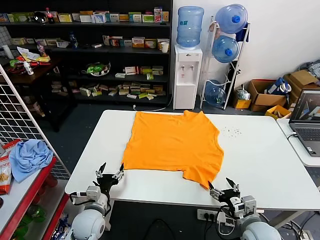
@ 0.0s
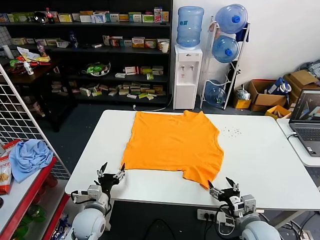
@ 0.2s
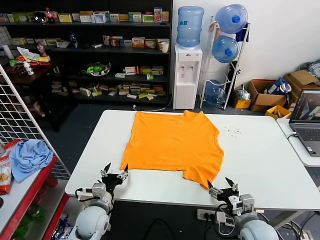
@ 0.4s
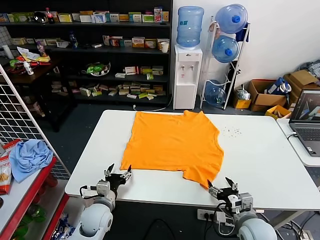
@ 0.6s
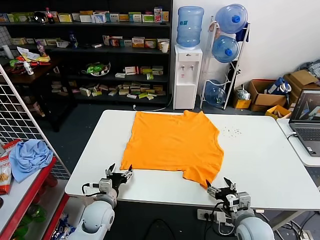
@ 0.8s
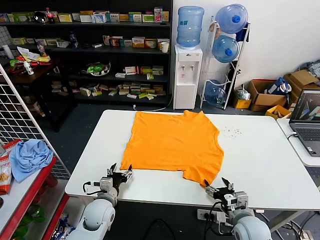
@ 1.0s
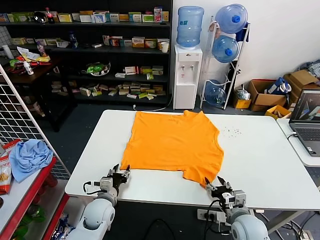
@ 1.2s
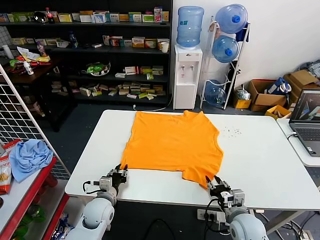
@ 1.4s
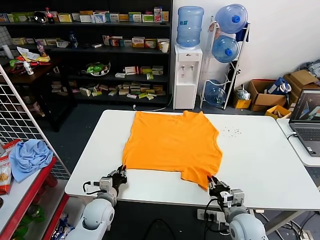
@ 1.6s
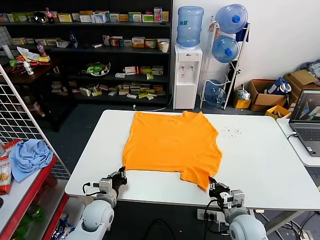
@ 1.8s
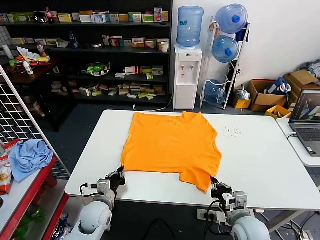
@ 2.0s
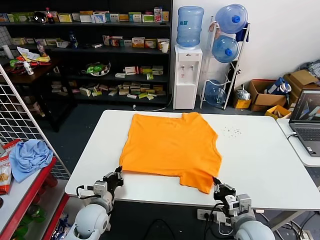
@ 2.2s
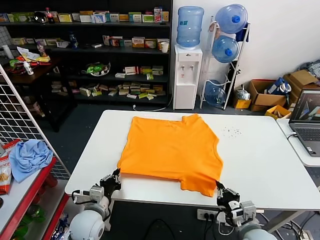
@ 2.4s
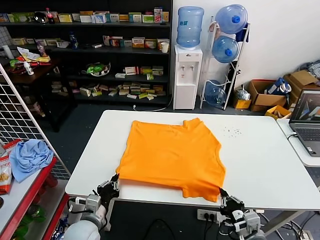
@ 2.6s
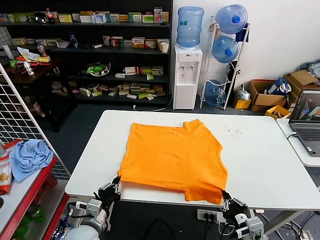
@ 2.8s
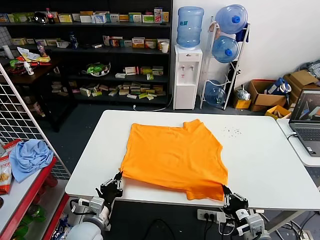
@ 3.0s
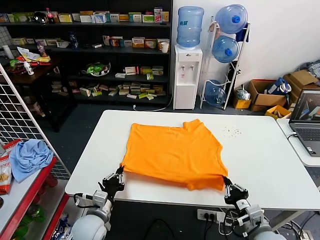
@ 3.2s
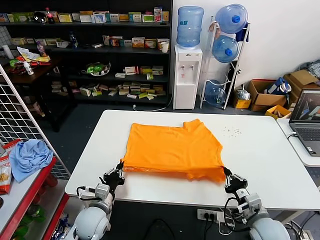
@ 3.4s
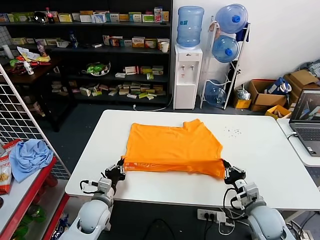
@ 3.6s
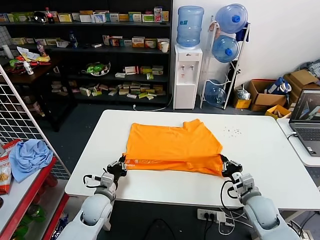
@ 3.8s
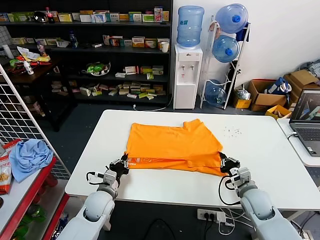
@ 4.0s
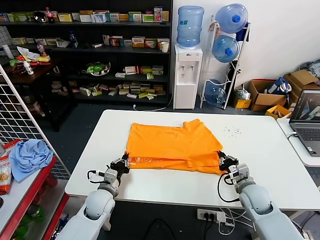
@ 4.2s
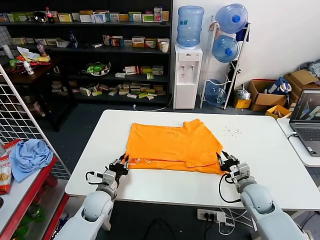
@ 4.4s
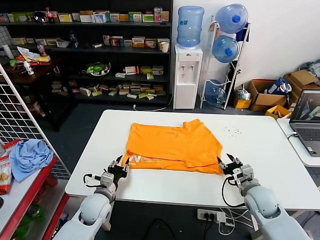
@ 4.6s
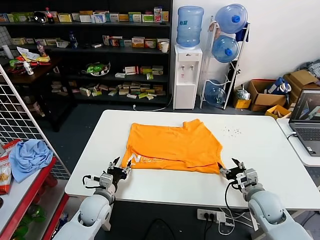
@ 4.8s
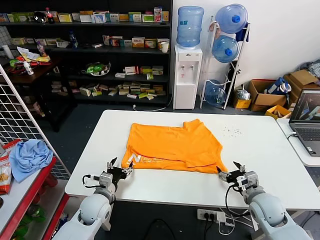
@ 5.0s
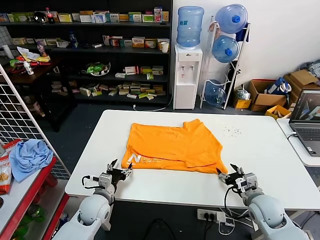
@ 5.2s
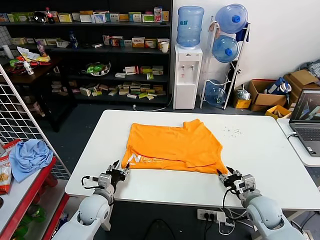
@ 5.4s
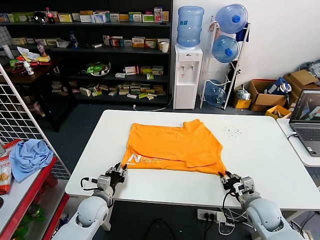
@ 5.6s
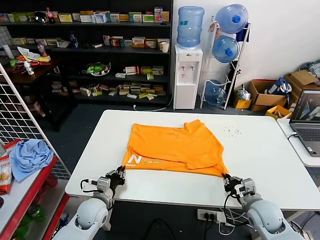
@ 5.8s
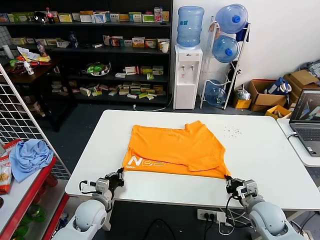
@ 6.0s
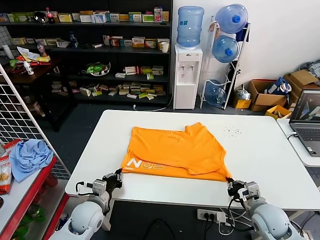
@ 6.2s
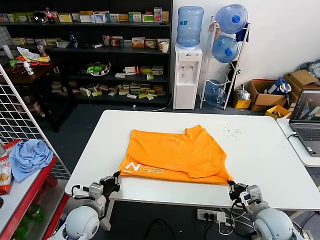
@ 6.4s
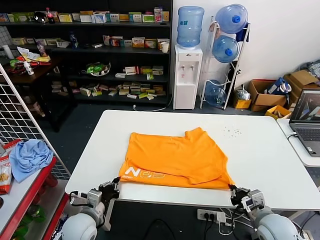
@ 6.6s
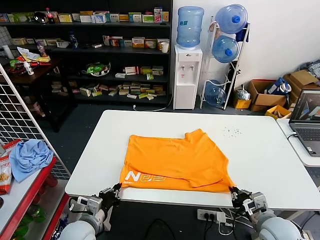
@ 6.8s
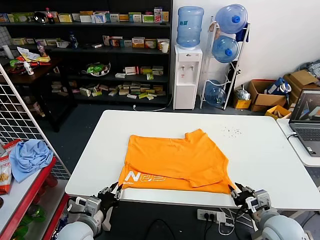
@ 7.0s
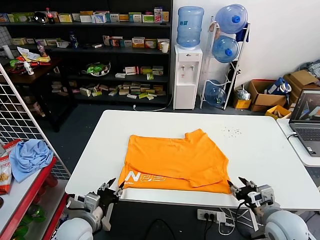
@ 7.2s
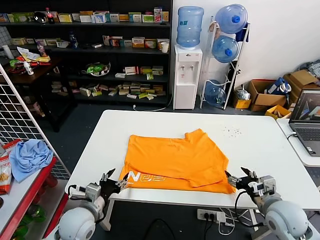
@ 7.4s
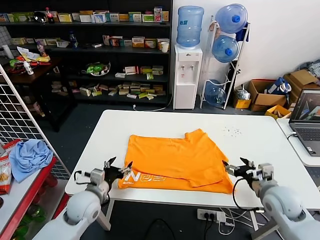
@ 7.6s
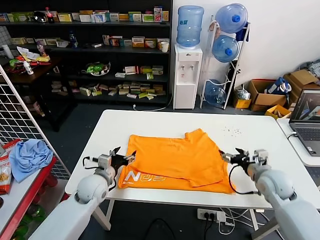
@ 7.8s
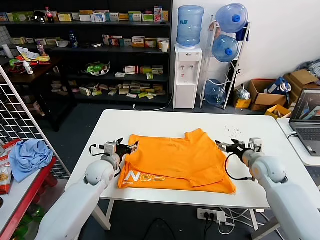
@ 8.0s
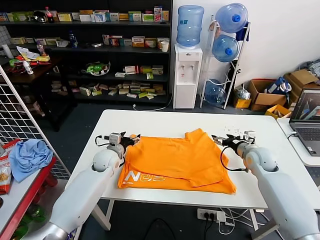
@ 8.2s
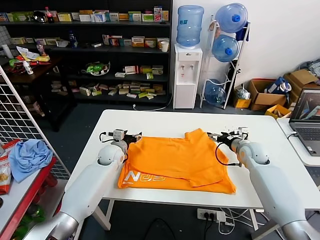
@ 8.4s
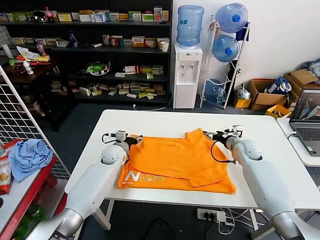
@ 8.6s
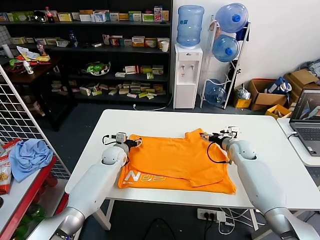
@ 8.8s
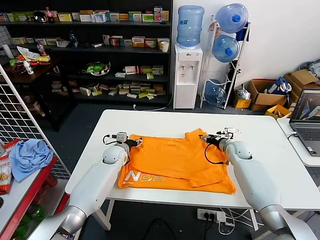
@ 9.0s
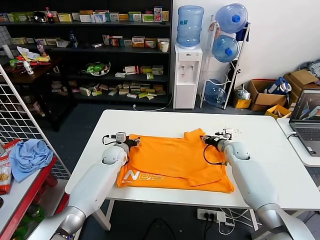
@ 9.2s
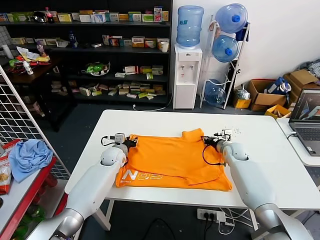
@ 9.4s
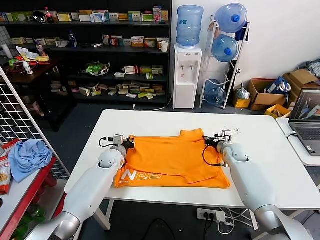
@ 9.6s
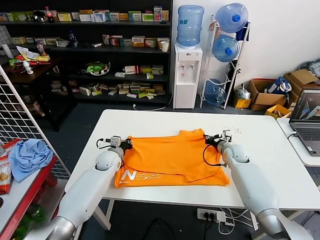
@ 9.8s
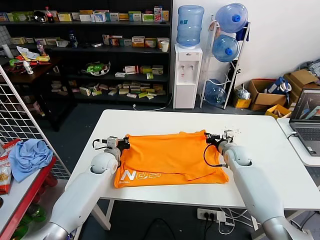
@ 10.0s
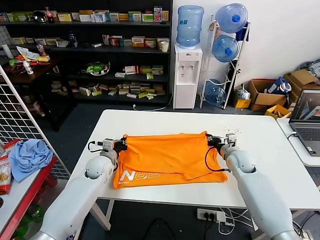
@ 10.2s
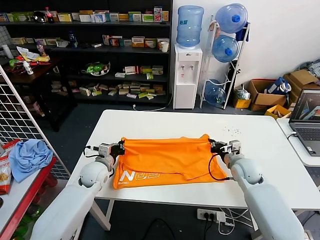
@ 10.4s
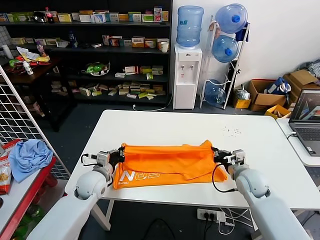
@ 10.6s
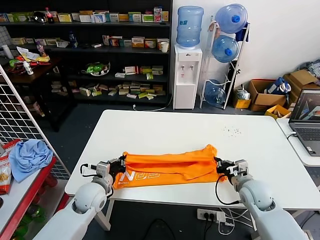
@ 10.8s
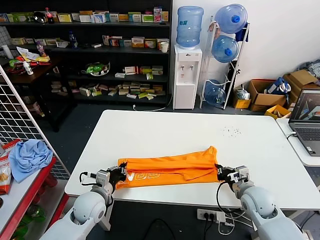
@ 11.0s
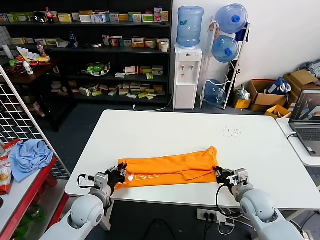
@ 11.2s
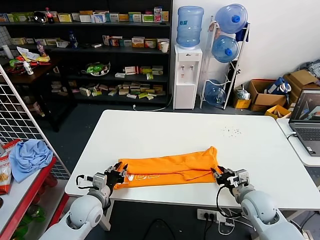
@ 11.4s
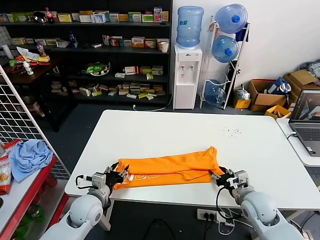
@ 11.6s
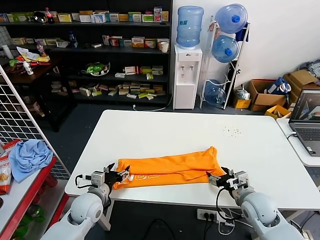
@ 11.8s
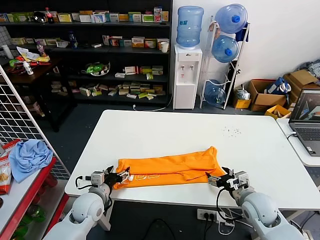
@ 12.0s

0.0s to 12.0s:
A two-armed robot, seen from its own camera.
Task of the whole recording: fold and organize the clothes.
Step, 0.0s to 2.0s: use both grippers simultaneously to clamp the lower edge of the clothing fabric.
Step, 2.2s to 4.4s: use both grippers to drag the lower edge of the fabric forward and fold it over the upper edge.
Step, 4.6s to 7.0s: Drag the clothes downward with both gripper.
Step, 7.2s to 9.6s: use both grippers simultaneously to clamp the upper edge of the clothing fabric.
Step, 9.8s to 11.6s: use both grippers to drag the upper edge of the fabric backward and fold it over the lower edge.
1.6s to 3.0s: The grippers both shift backward by approximately 10 cm.
3.0s to 4.4s: The grippers both shift forward by some 15 cm. The right gripper opens.
4.4s to 6.0s: The left gripper opens, then closes again; the right gripper heads backward, covering approximately 5 cm, and closes.
6.0s to 7.6s: Both grippers move upward, approximately 5 cm. The right gripper opens its fingers, while the left gripper moves roughly 10 cm backward and comes back, and opens up.
7.6s to 9.0s: Both grippers move forward, approximately 20 cm.
9.0s to 10.4s: Both grippers travel together backward, roughly 10 cm. The left gripper closes. Meanwhile the right gripper closes up.
10.4s to 12.0s: Both grippers move backward, approximately 10 cm. The left gripper opens. The right gripper opens up.

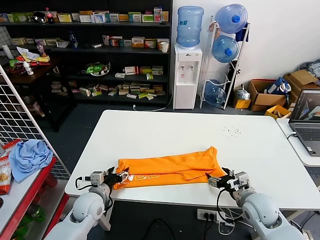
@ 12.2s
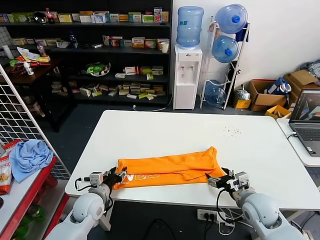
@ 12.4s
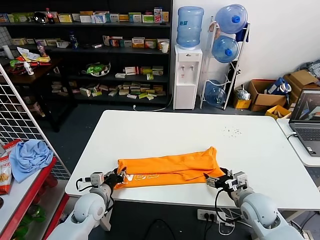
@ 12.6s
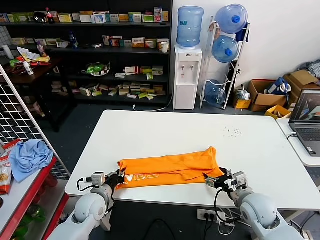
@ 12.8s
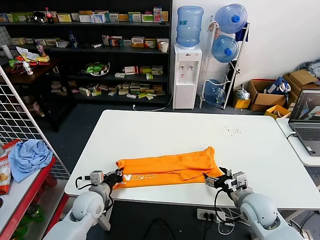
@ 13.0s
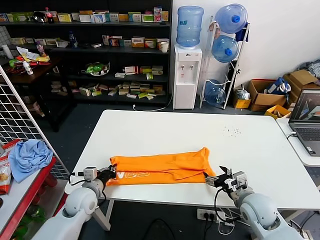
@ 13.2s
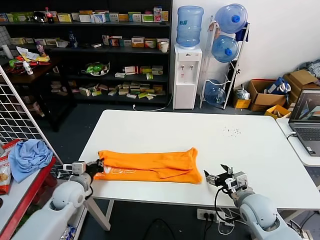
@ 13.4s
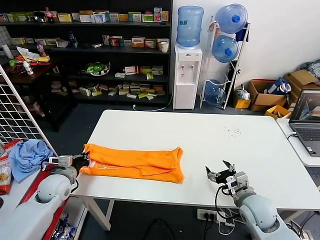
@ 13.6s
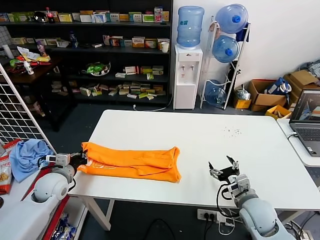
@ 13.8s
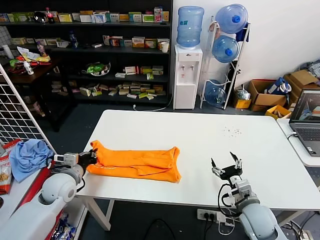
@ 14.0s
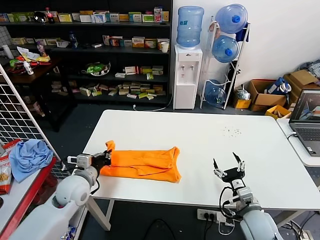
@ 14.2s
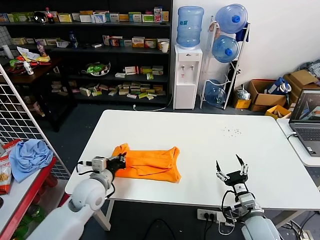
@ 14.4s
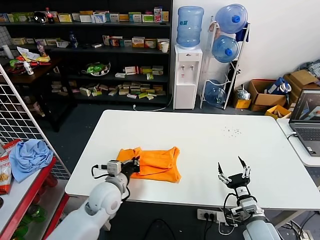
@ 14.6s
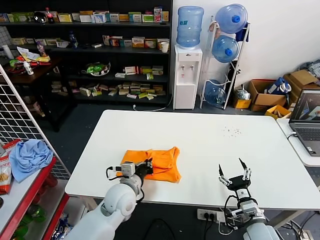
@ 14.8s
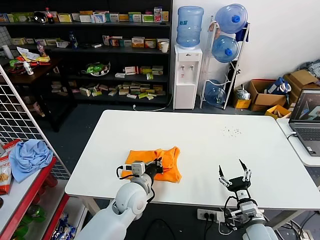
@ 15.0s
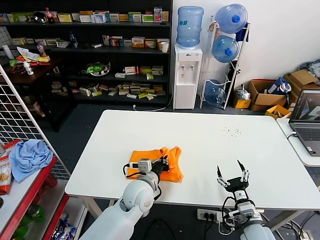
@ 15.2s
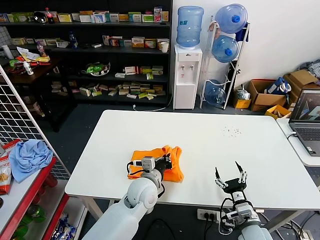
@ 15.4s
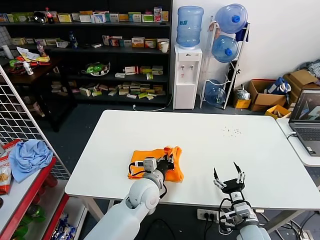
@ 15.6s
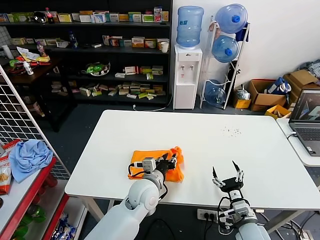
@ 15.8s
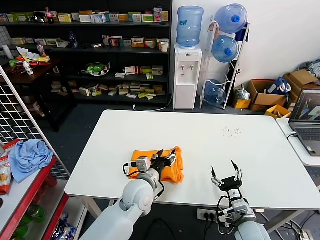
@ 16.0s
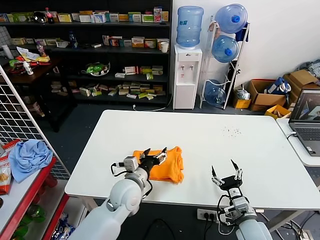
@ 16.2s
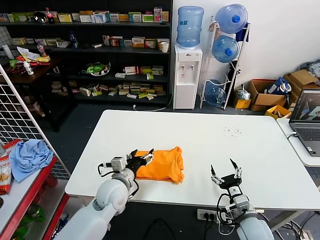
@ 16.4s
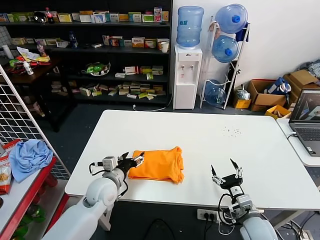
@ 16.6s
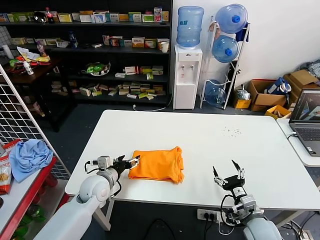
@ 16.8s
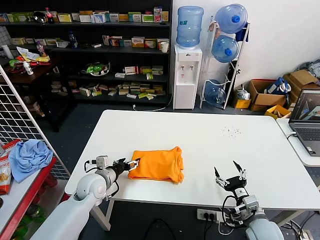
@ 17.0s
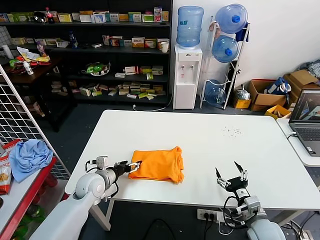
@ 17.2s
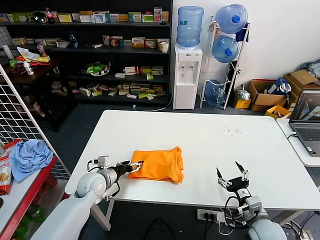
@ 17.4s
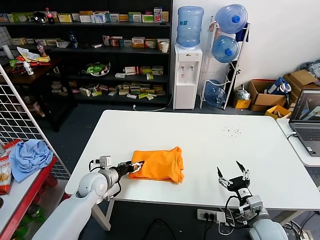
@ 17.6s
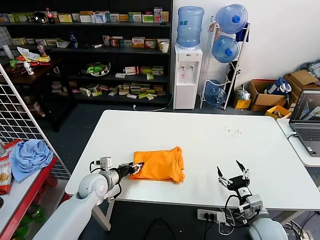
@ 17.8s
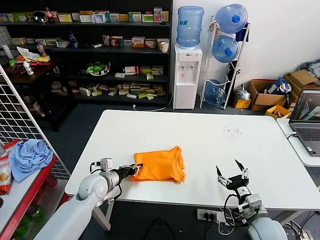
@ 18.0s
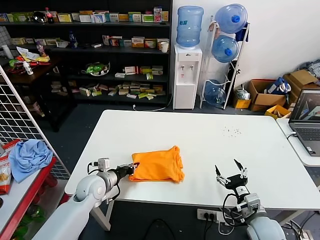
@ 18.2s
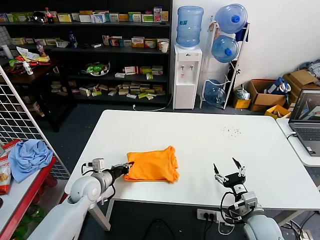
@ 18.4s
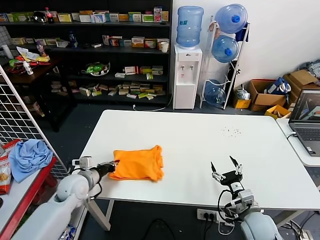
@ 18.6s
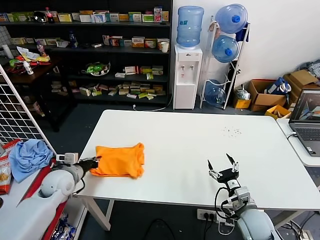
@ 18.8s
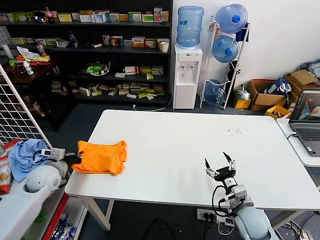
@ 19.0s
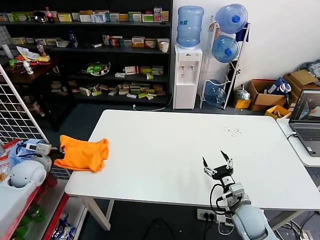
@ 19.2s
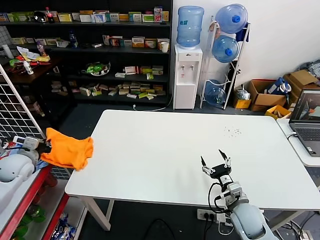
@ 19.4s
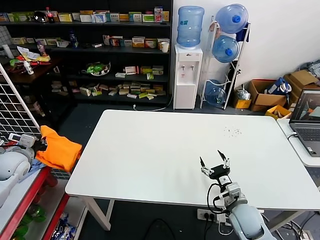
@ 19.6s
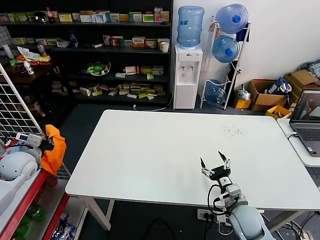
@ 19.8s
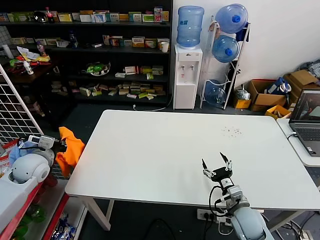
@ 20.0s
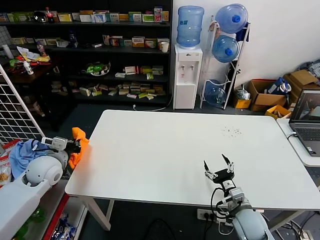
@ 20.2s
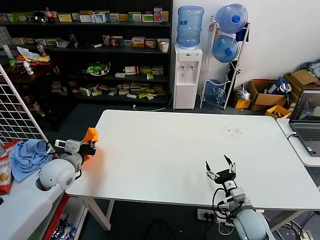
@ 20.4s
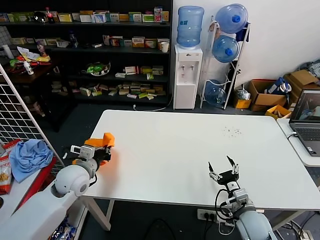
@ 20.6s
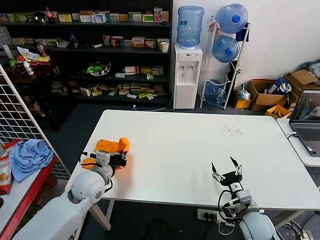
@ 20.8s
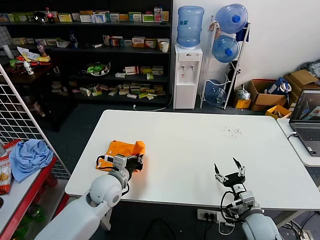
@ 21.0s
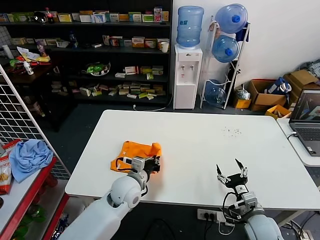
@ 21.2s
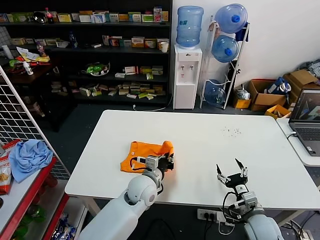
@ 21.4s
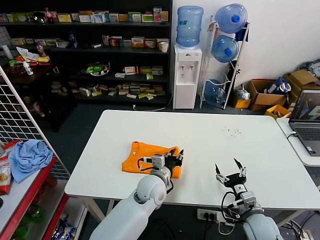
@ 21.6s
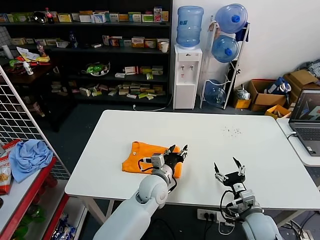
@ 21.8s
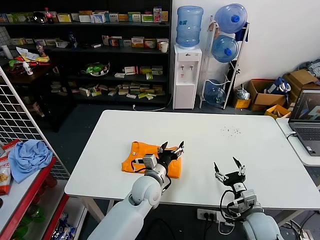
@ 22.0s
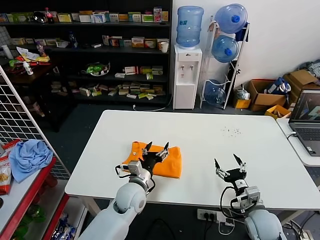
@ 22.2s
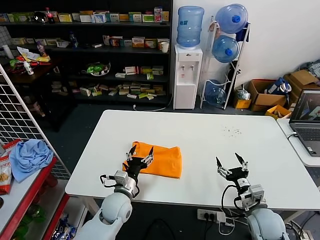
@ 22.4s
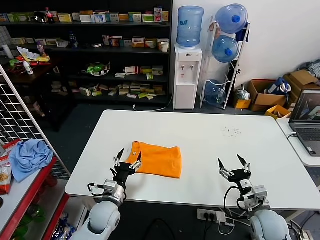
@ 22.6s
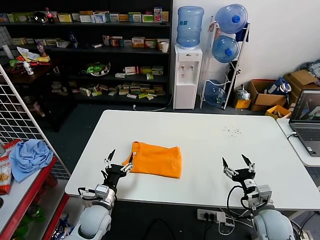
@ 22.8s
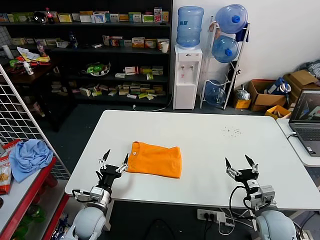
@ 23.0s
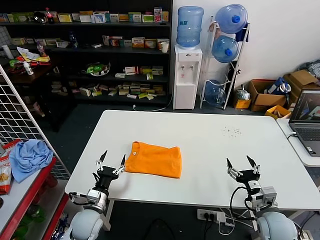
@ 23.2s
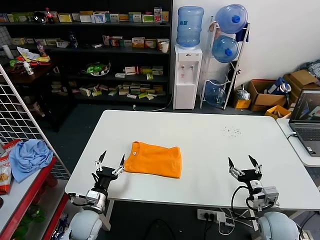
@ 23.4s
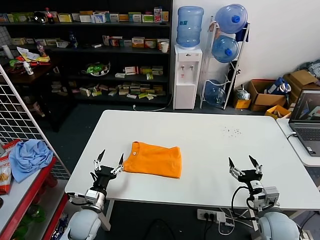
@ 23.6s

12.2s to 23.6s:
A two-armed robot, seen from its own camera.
Task of the whole recording: fold and organize the clothes.
Step, 13.0s to 16.0s: use the left gripper to drag the left edge of the fabric to the left and folds it over the right edge.
Step, 16.2s to 21.8s: Flip the folded clothes over with left gripper.
12.2s to 13.6s: The left gripper heads to the left, covering about 10 cm, and closes.
13.6s to 15.0s: The right gripper goes roughly 10 cm downward and backward. The left gripper shifts approximately 25 cm to the right.
15.0s to 16.4s: The left gripper opens.
16.4s to 17.8s: The left gripper heads to the left, covering some 10 cm.
17.8s to 19.4s: The left gripper goes roughly 25 cm to the left and upward, and closes. Meanwhile the right gripper ends up some 5 cm from where it was.
19.4s to 20.8s: The left gripper travels to the right by some 25 cm.
20.8s to 22.2s: The left gripper heads to the right, covering approximately 15 cm, and opens its fingers.
22.2s to 23.6s: The left gripper heads to the left, backward and downward, covering approximately 20 cm.
